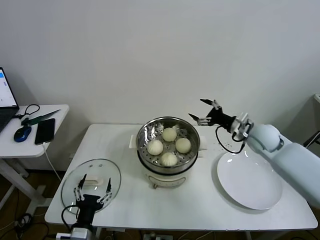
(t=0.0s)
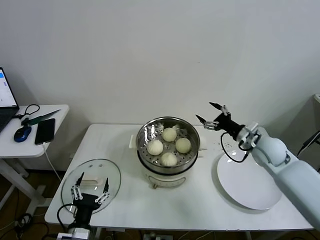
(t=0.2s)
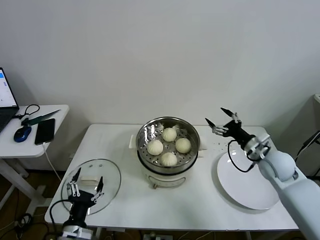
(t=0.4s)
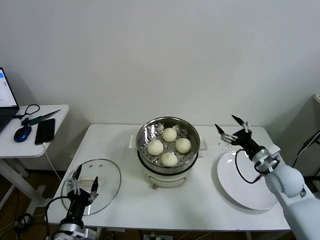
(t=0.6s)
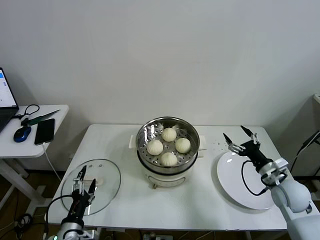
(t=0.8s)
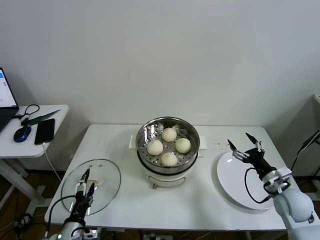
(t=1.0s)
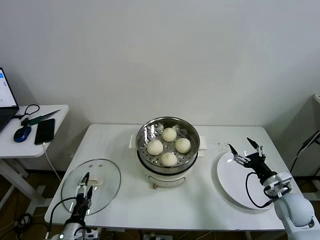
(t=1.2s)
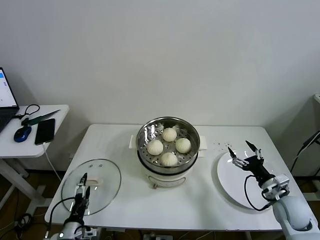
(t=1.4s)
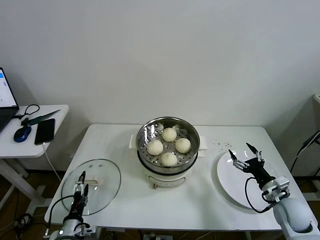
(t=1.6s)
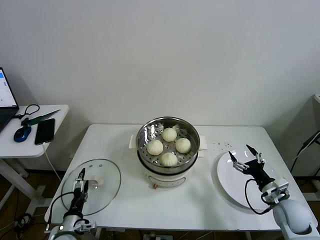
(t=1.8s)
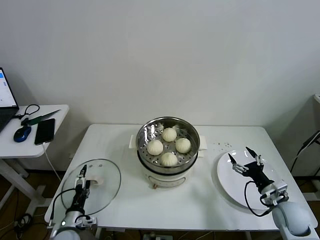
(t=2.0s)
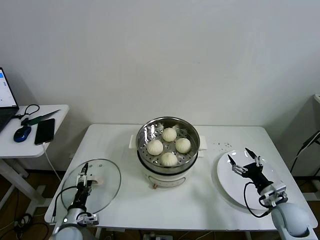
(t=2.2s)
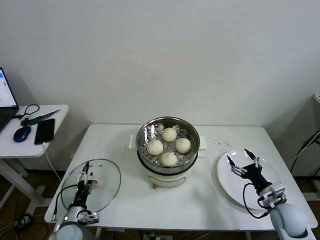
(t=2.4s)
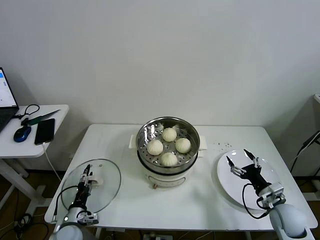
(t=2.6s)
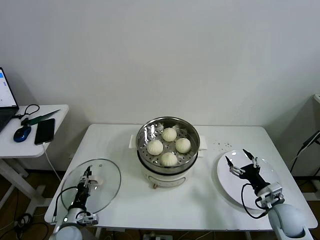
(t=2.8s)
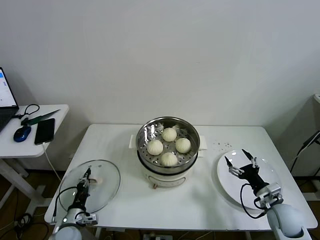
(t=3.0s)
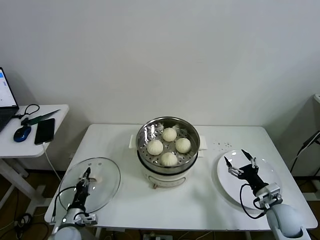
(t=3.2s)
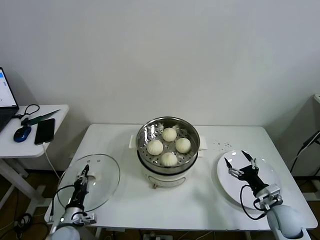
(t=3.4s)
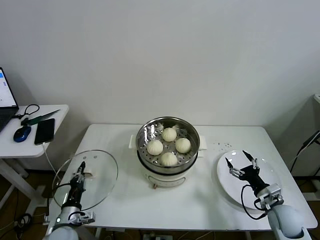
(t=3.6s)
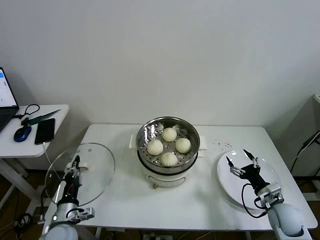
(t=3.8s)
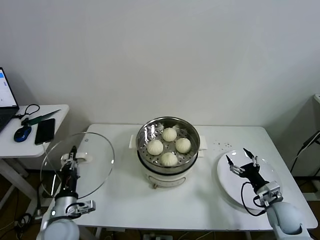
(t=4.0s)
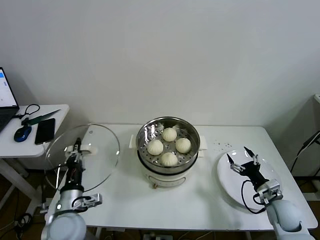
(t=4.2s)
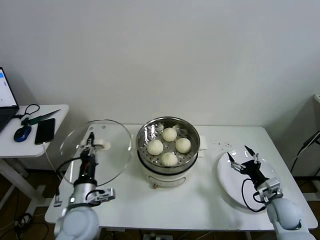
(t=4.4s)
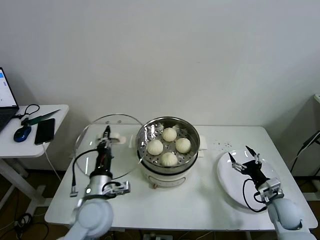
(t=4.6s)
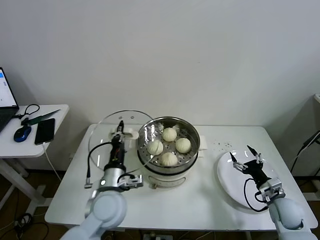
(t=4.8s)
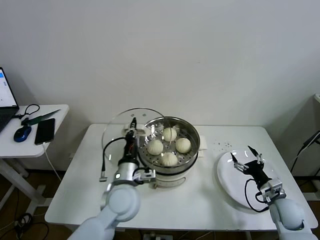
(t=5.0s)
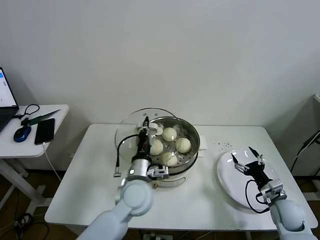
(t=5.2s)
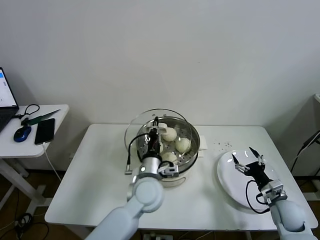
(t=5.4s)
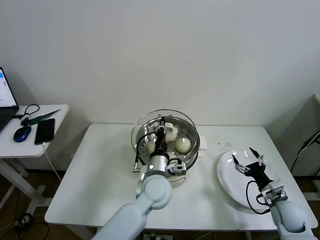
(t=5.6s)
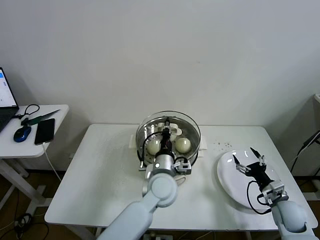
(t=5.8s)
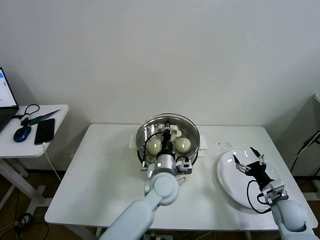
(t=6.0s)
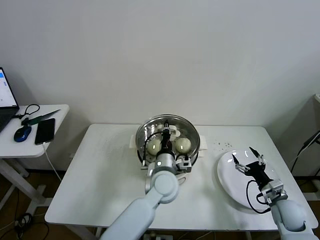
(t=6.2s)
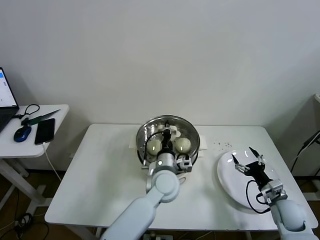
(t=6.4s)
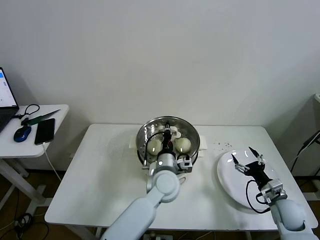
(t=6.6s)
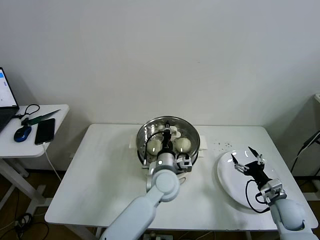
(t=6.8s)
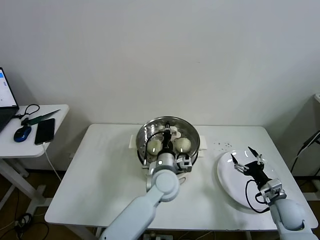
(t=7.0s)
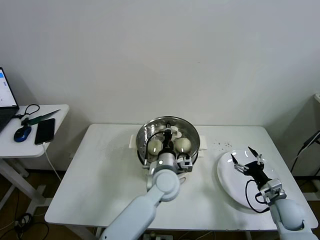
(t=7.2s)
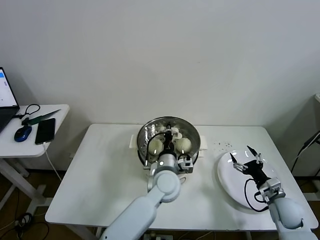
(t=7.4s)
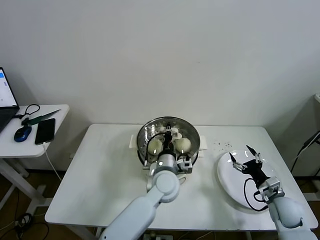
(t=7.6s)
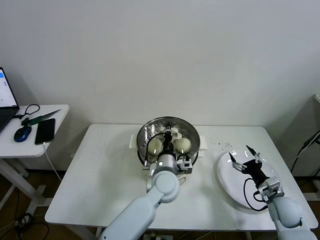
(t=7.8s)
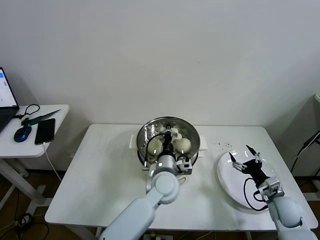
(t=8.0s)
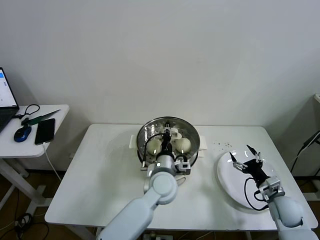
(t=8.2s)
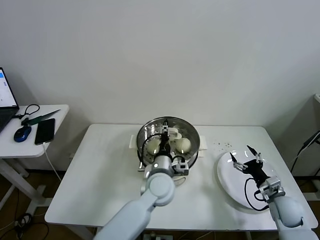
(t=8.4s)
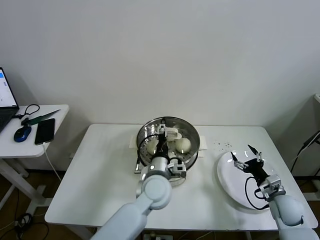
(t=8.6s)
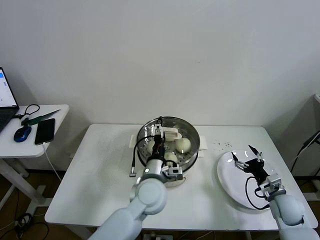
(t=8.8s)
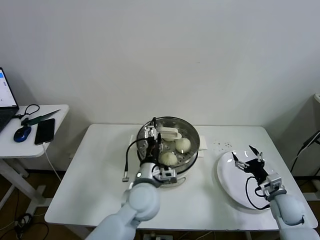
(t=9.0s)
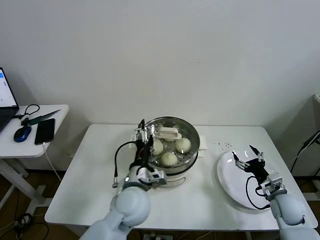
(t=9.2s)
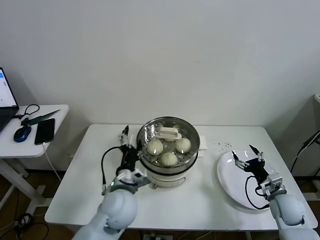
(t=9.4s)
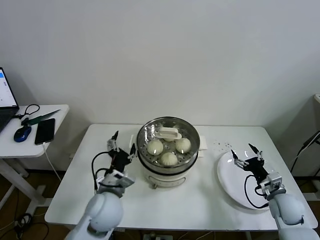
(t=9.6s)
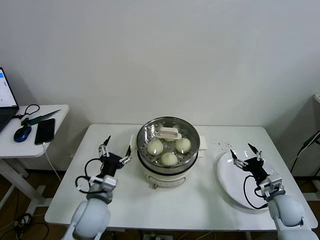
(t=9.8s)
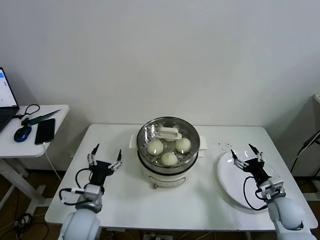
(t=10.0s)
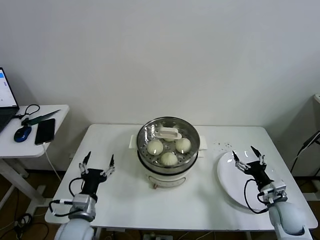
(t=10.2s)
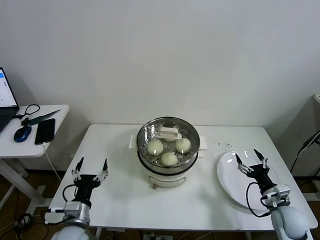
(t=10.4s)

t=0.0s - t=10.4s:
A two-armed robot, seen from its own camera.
Task of the whole recording: take steamed baozi put them in steamer then cover it.
Step, t=0.0s - t=3.0s: Grasp the pot lid with left gripper.
Step, t=3.2s - t=8.2s: Place the pot lid on the steamer with left gripper.
t=0.0s - t=1.4s: The right gripper heads backward and downward, covering roughly 25 cm; the left gripper goes roughly 10 cm downward and to the left.
t=1.4s - t=3.0s: The left gripper goes approximately 10 cm forward and downward, and closes.
t=3.0s - t=4.4s: The left gripper is displaced upward and to the right by roughly 20 cm.
t=4.4s - t=6.0s: The left gripper shifts approximately 25 cm to the right and forward.
t=6.0s - t=7.4s: The grippers stay close to where they were, moving slightly.
t=7.4s - t=9.0s: The left gripper shifts about 10 cm to the left and backward, and opens its fingers.
t=9.0s - t=10.4s: The left gripper is displaced to the left and backward by roughly 25 cm.

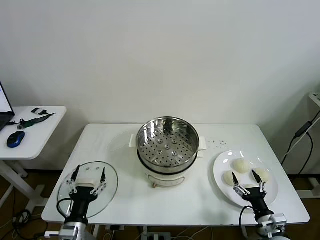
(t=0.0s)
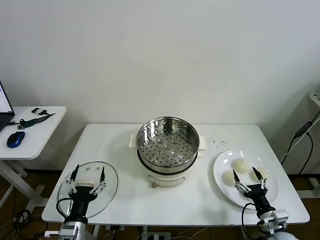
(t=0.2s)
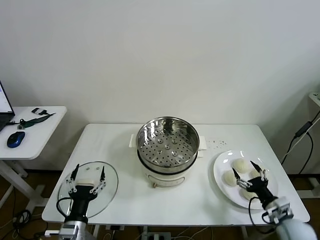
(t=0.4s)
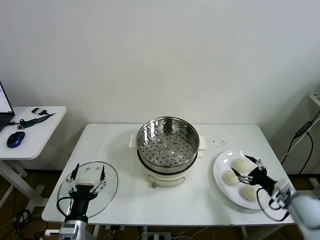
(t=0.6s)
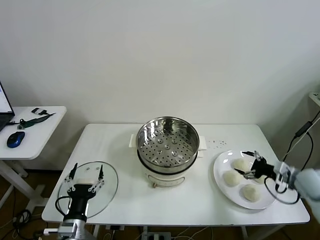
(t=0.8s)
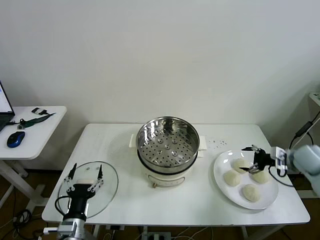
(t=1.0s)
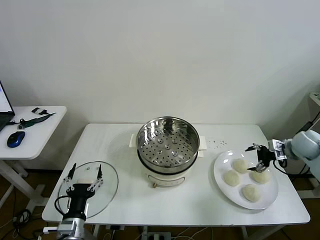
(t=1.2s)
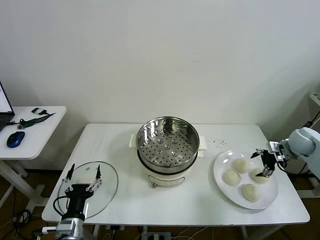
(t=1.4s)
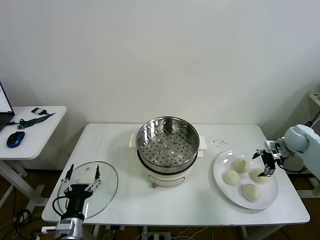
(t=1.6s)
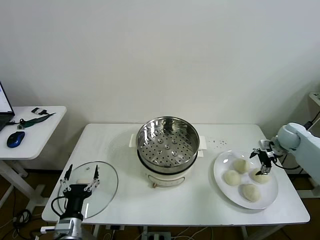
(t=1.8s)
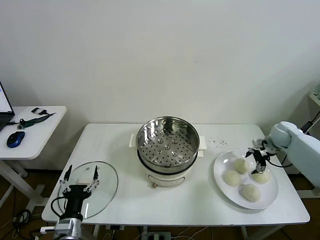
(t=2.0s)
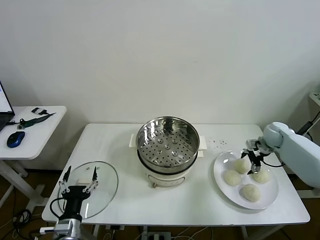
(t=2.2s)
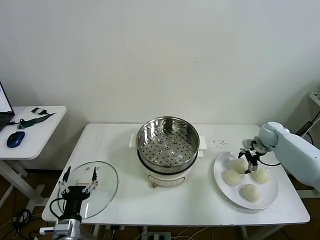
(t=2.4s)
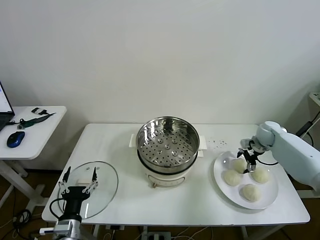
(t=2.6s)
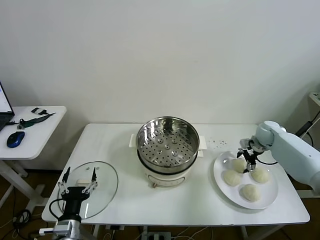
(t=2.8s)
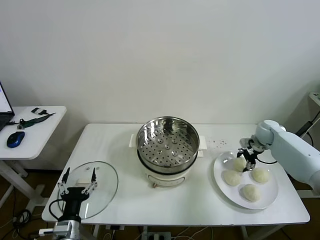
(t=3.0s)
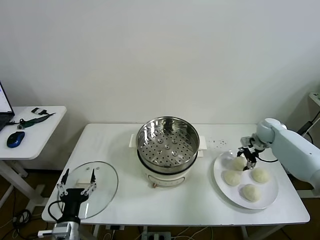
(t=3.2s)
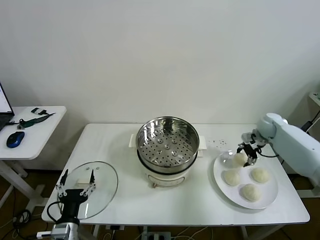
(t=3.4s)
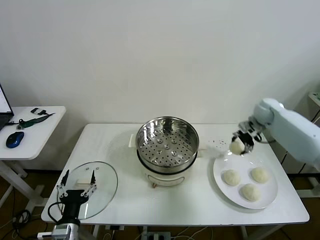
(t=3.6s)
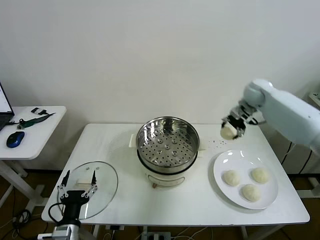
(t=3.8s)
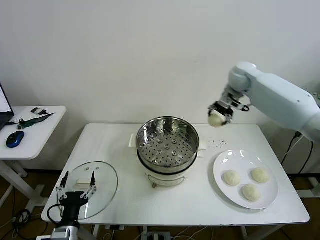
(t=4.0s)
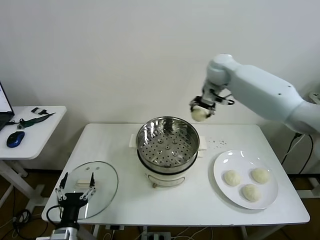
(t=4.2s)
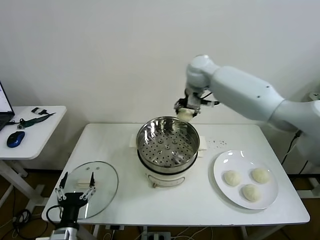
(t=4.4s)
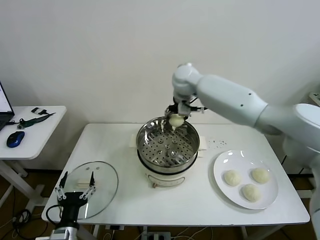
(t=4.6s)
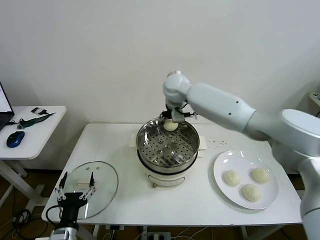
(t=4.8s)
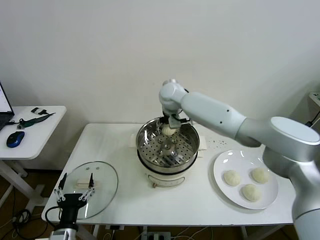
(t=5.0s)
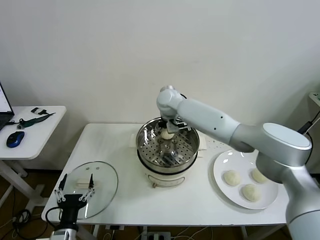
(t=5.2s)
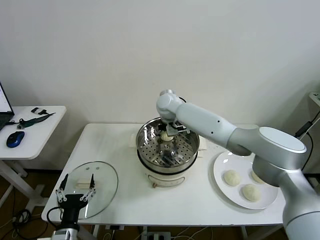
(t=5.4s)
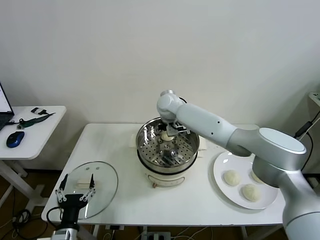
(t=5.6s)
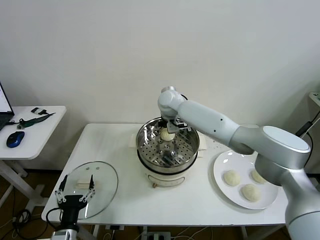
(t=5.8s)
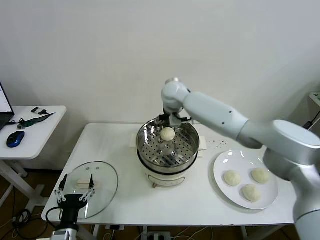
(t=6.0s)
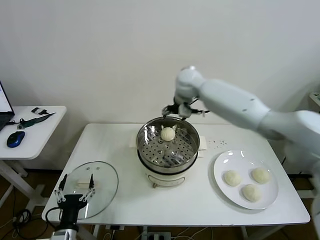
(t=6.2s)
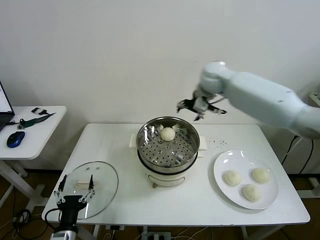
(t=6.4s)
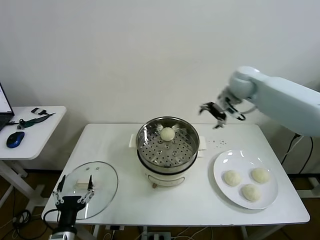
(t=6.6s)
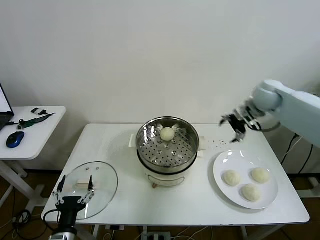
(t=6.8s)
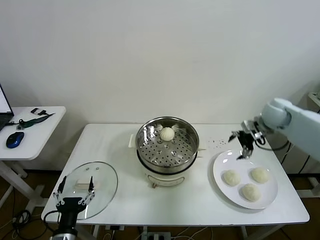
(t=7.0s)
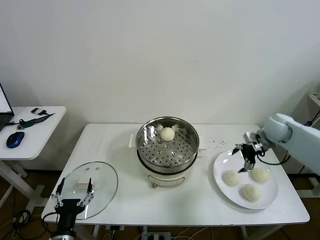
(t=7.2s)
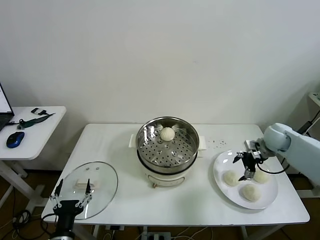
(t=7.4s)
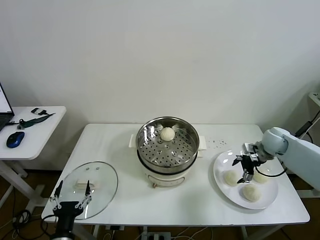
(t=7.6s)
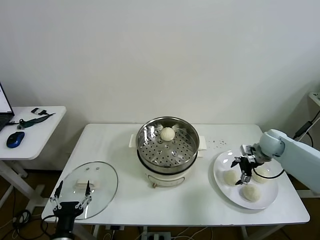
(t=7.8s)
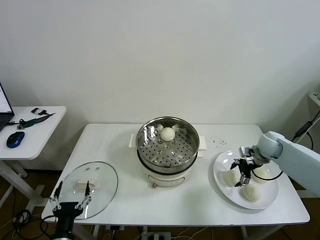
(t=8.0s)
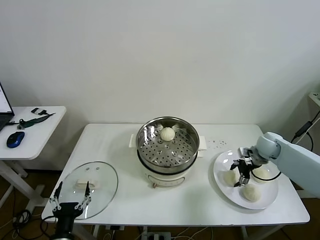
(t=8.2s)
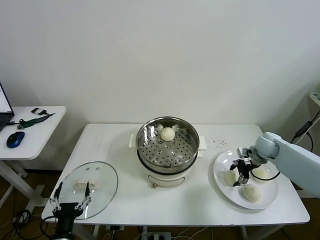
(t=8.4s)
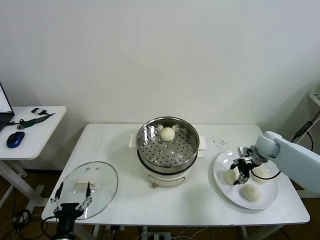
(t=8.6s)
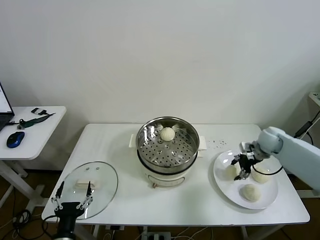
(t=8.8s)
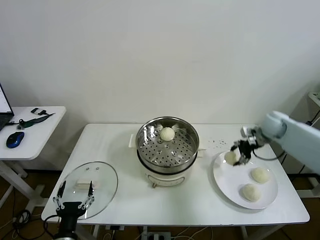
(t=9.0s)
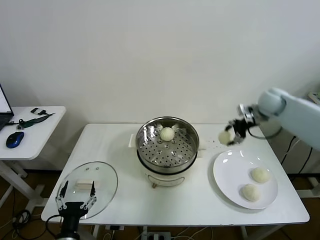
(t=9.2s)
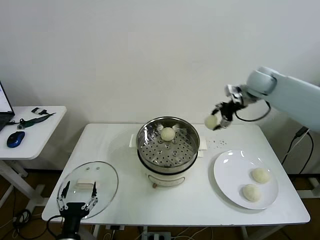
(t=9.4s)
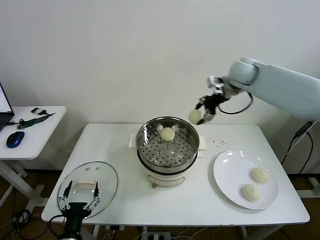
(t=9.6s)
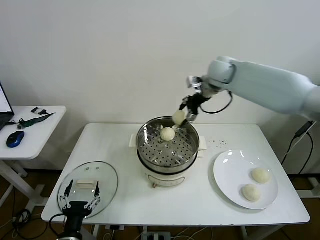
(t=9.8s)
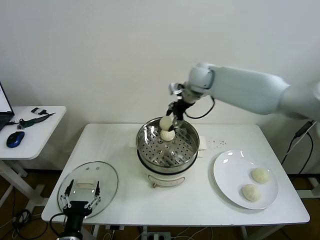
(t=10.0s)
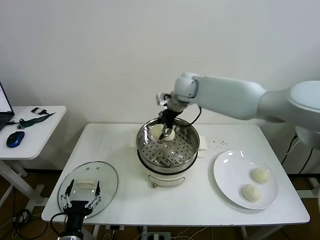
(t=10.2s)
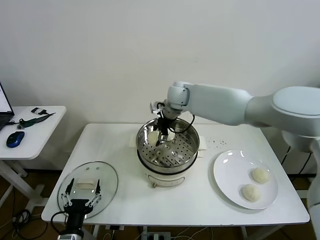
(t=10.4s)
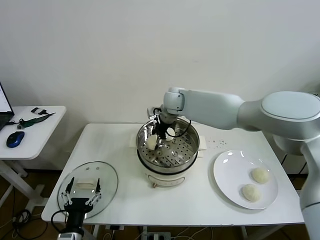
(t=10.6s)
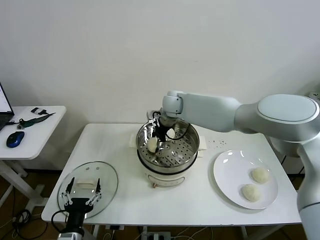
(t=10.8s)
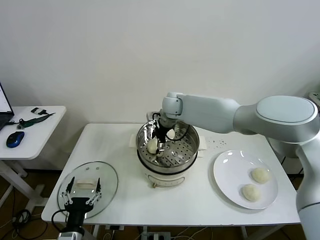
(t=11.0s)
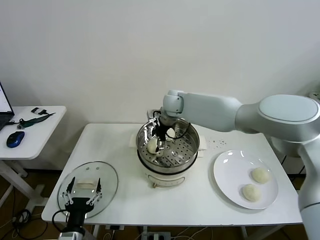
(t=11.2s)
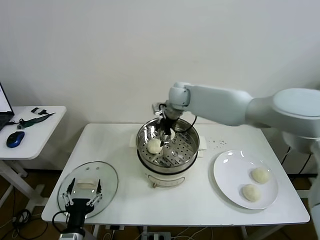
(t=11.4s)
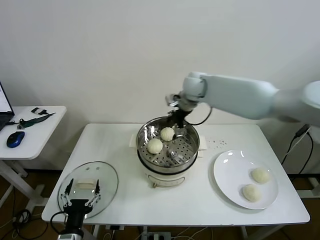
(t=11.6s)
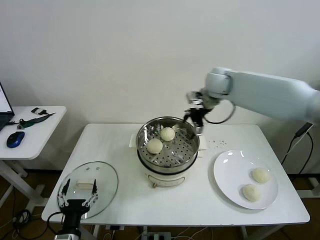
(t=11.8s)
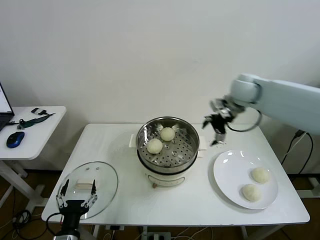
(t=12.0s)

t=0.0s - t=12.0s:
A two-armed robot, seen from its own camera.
Task of the whole recording: take steamed baozi put them in steamer then cover it.
Step, t=0.0s - t=2.8s: Grasp the baozi in the plate with right gripper.
Step, t=3.0s - t=5.8s: Place the baozi on the steamer with right gripper.
Step, t=6.0s - t=8.2s: Grasp the baozi in the plate with right gripper.
Step, t=8.4s - t=11.0s: Place the baozi on the steamer with right gripper.
t=1.6s - t=3.0s: The right gripper shifts some 10 cm to the left and forward, and closes up.
t=3.0s - t=4.4s: The right gripper goes approximately 40 cm to the left and upward.
t=4.4s - t=6.0s: The right gripper opens its fingers.
t=6.0s - t=7.6s: The right gripper moves to the right and downward, about 40 cm.
t=7.6s - t=9.0s: The right gripper shifts roughly 10 cm upward and forward, and closes its fingers.
t=9.0s - t=10.4s: The right gripper shifts approximately 35 cm to the left.
t=10.4s - t=12.0s: The right gripper goes some 25 cm to the right, and opens.
